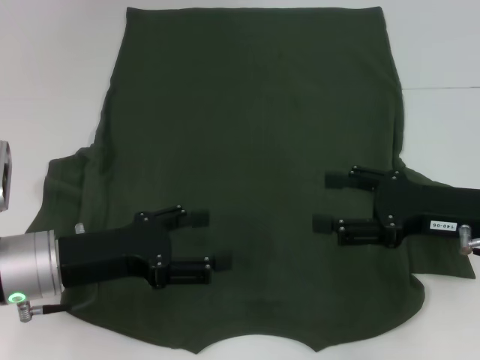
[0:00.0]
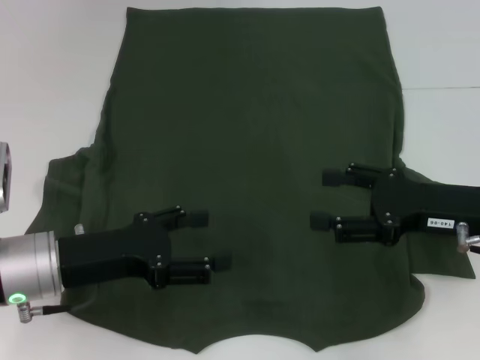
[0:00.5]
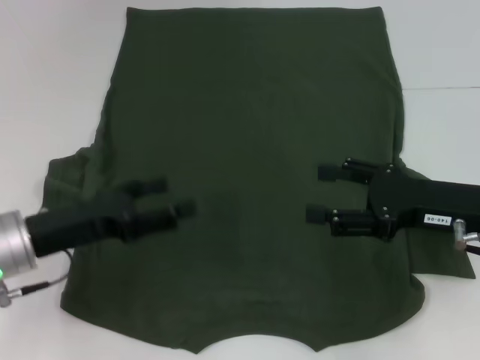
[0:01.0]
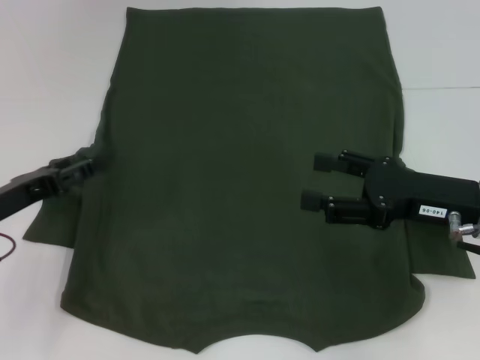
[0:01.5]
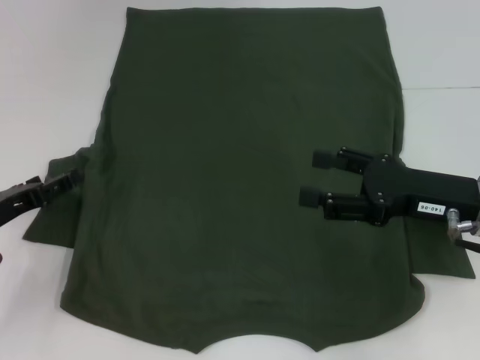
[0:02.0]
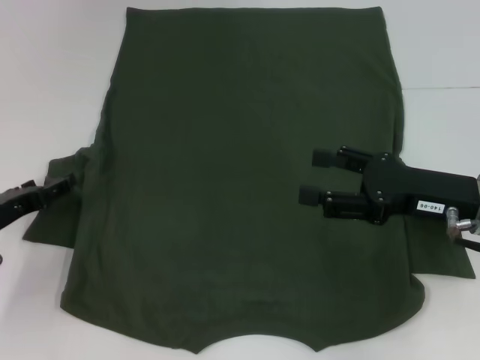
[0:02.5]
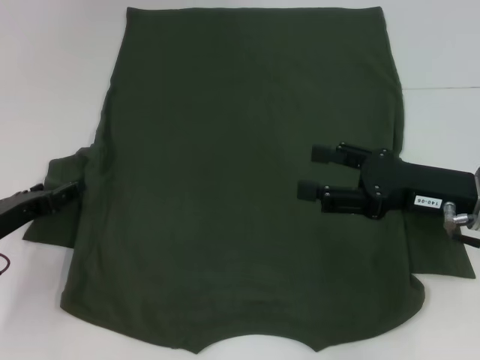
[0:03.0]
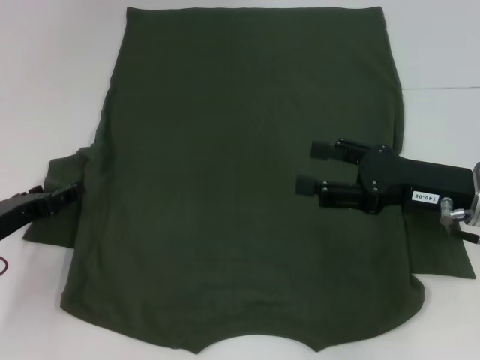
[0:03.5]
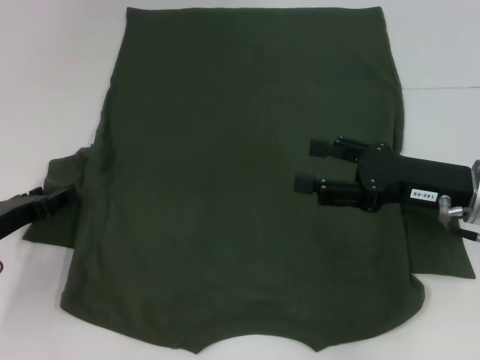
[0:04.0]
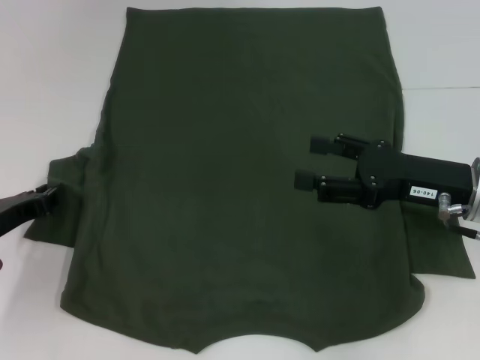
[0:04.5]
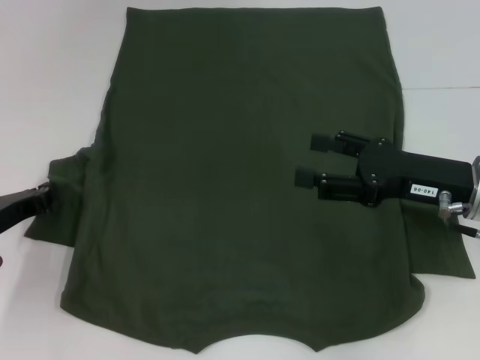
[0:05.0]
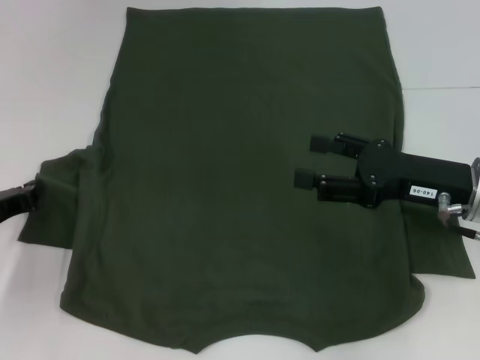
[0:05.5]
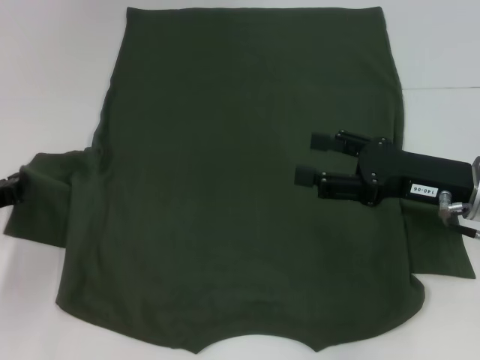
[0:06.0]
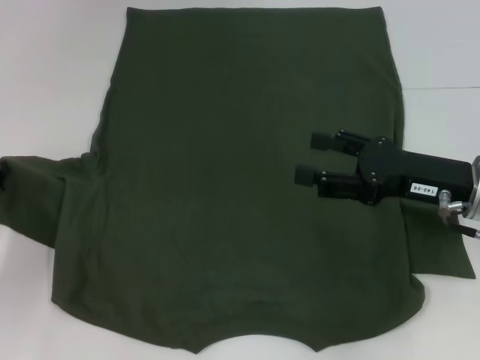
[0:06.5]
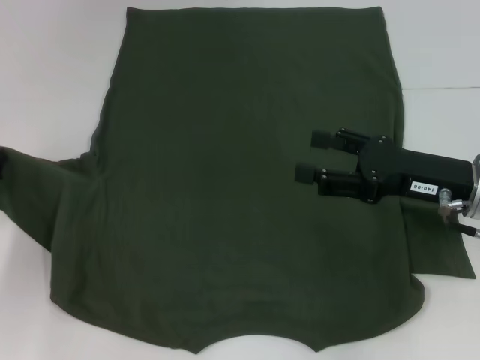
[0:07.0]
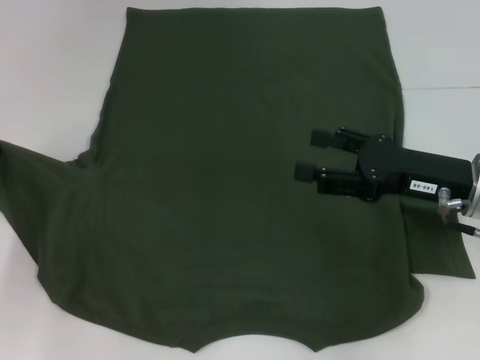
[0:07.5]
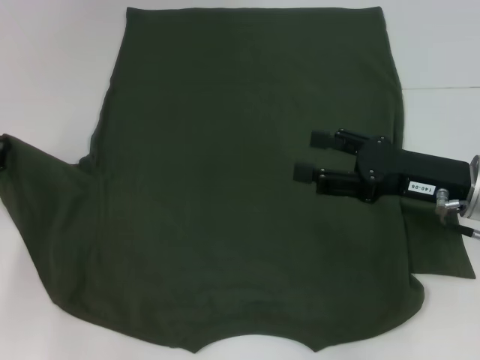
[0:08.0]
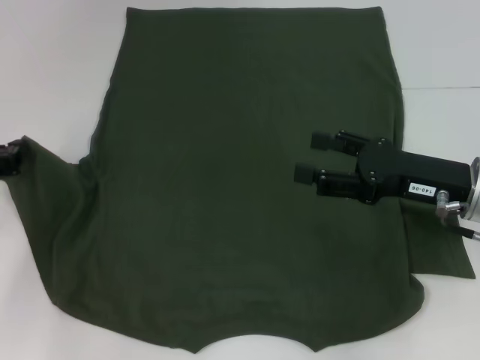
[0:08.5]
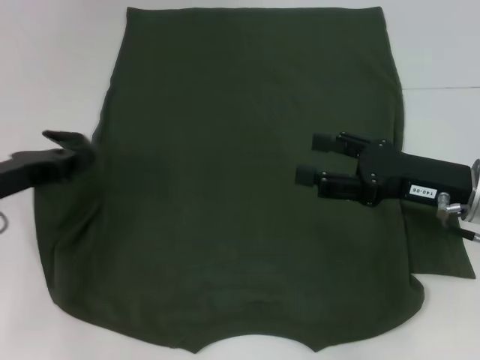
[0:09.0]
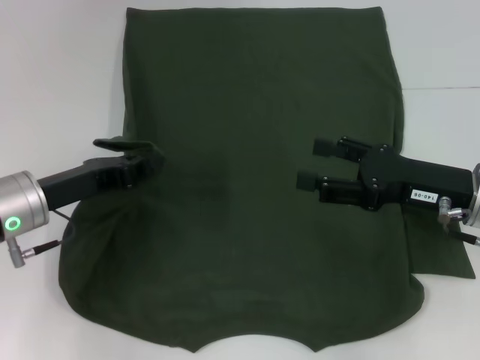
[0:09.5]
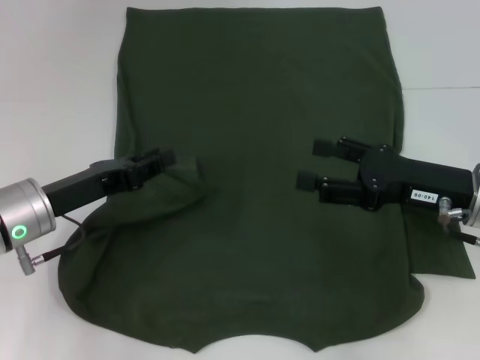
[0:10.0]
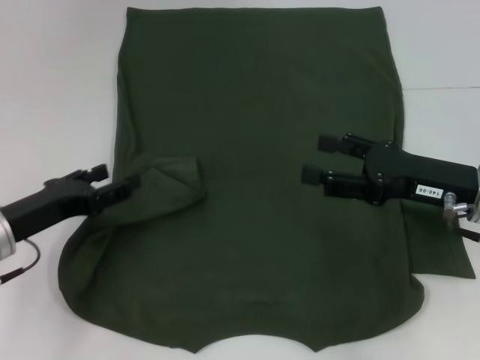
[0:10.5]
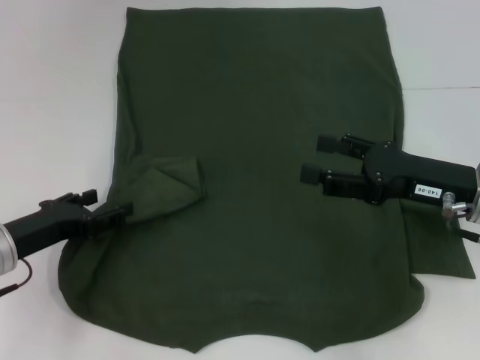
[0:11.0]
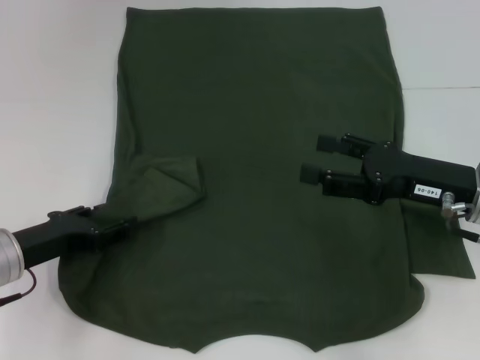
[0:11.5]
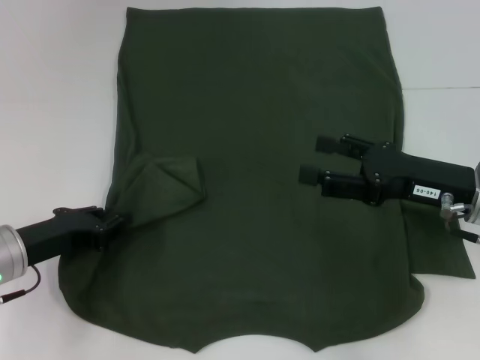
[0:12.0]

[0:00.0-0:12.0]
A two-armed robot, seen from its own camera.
0:00.0 to 0:02.0: The left gripper goes some 10 cm to the left.
0:02.0 to 0:04.0: There are only small adjustments of the grippers.
0:04.0 to 0:06.0: The left gripper closes.
0:06.0 to 0:08.0: The grippers move only a little.
0:08.0 to 0:10.0: The left gripper goes approximately 10 cm to the right.
0:10.0 to 0:12.0: The left gripper changes place by roughly 5 cm, and opens its fingers.

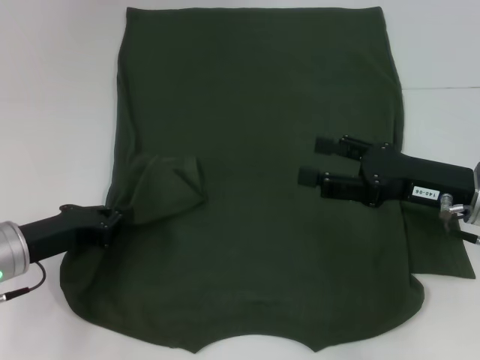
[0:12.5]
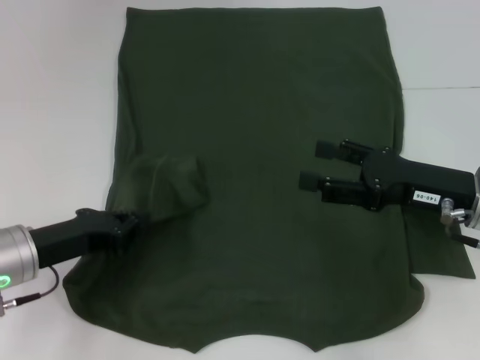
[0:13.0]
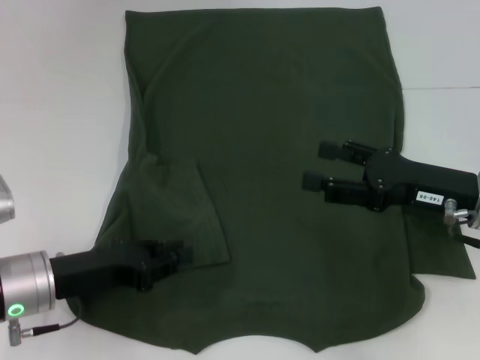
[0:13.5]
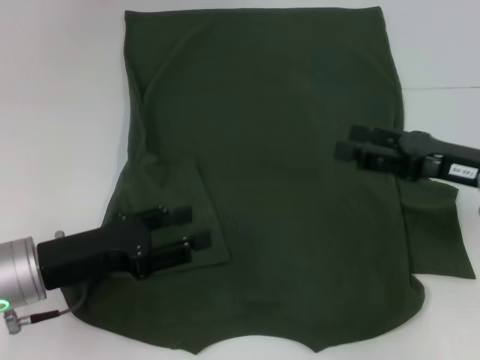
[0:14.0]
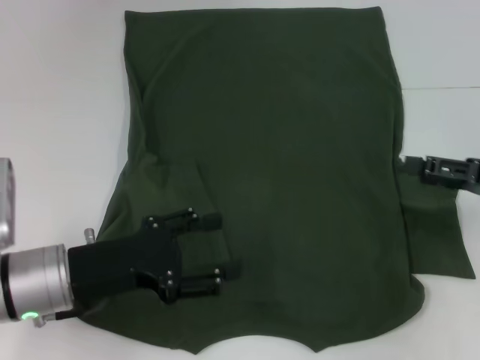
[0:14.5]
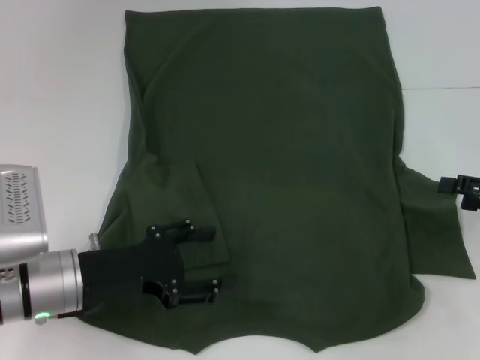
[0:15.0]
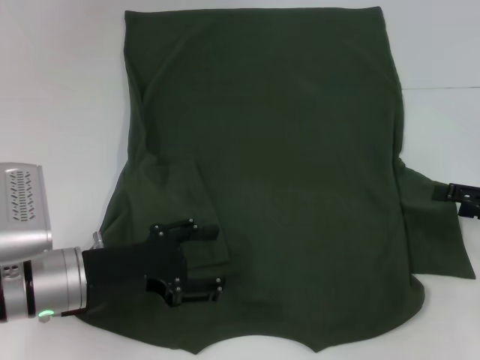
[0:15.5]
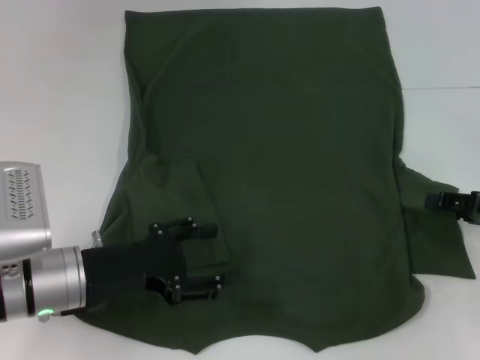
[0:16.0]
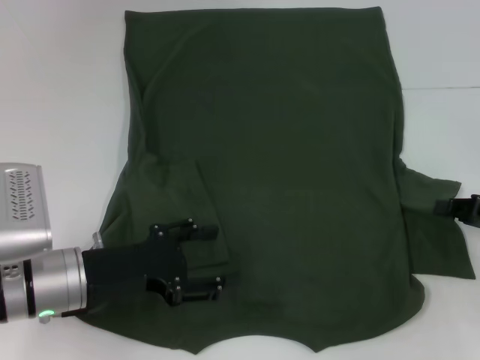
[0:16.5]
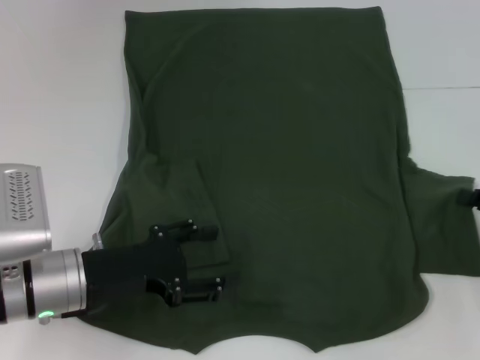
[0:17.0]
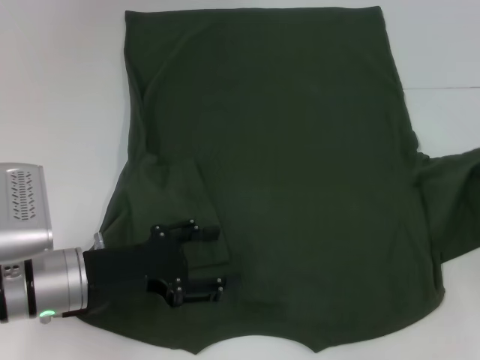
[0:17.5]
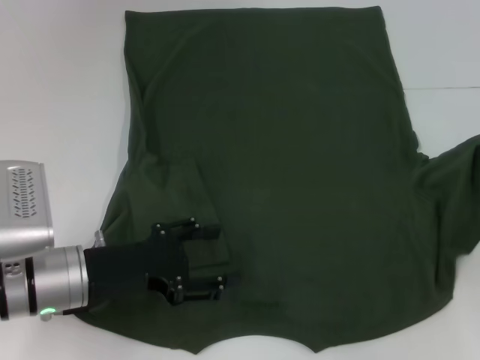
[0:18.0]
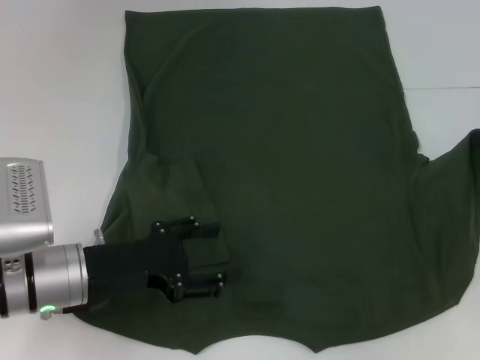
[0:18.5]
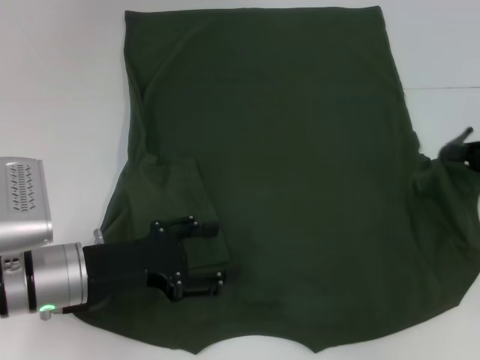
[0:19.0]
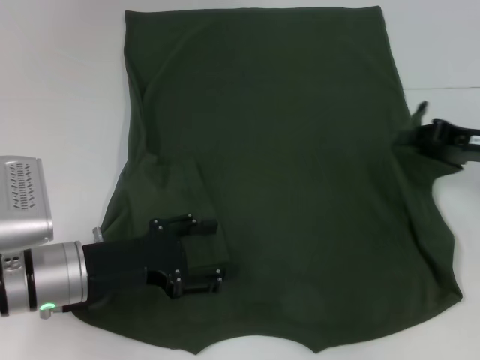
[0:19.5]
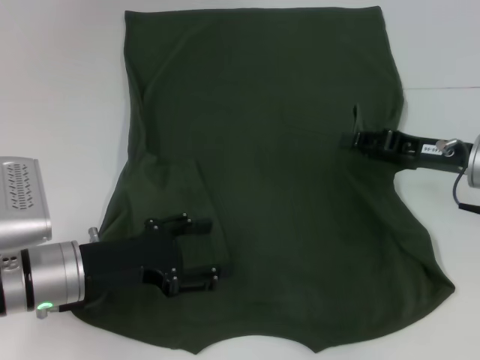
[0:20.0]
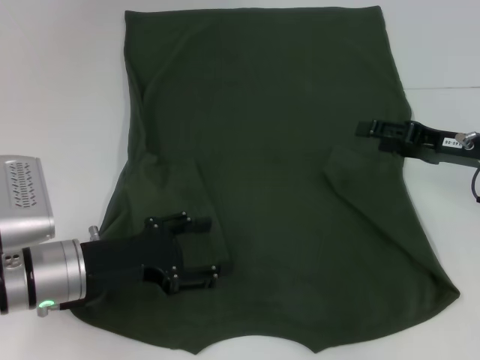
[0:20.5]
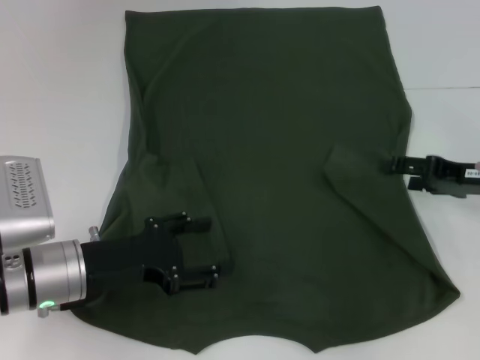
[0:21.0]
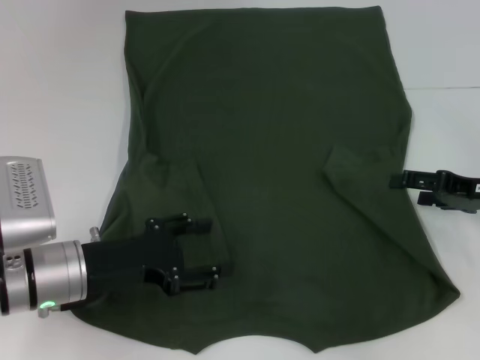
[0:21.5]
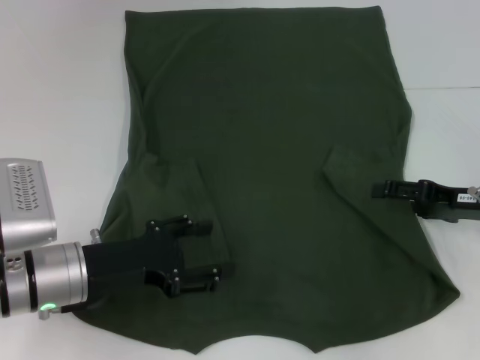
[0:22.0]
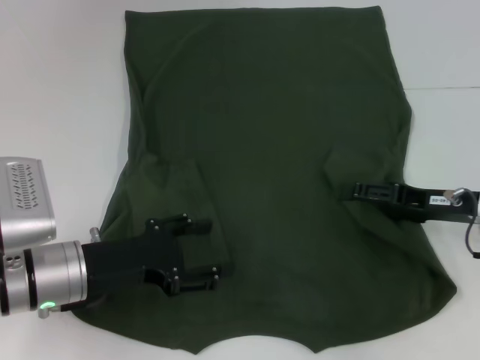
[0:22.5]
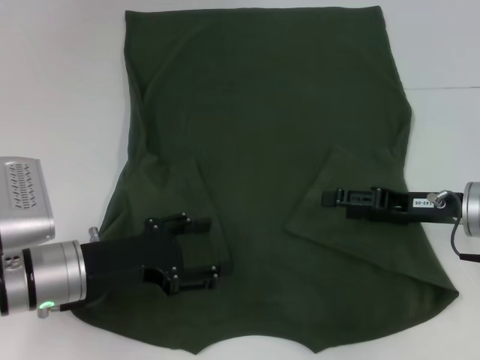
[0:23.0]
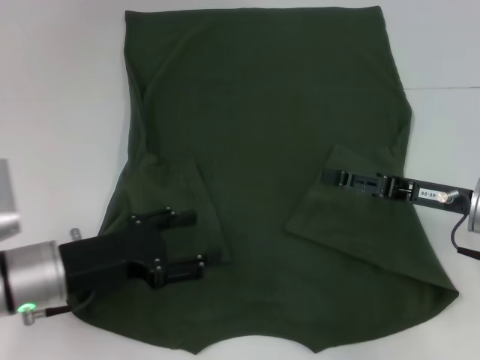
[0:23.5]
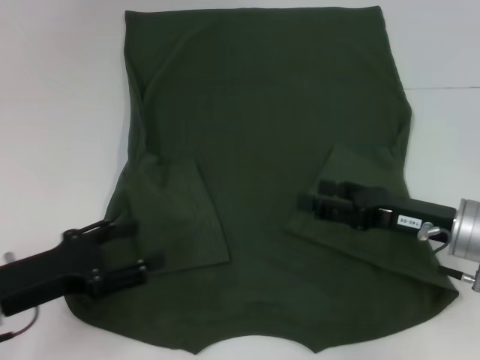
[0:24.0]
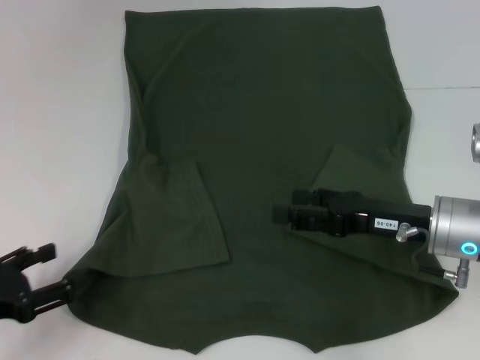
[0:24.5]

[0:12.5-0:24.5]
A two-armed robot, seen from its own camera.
Step, 0:14.0 to 0:23.0: Fold the bottom right sleeve with your right hand.
0:12.5 to 0:14.5: The right gripper shifts some 10 cm to the right. Meanwhile the left gripper moves to the right, approximately 5 cm, and opens.
0:14.5 to 0:16.5: The right gripper is displaced downward by approximately 5 cm, and closes.
0:16.5 to 0:18.5: The right gripper changes place by some 5 cm.
0:18.5 to 0:20.5: The right gripper travels to the left by approximately 10 cm, and opens.
0:20.5 to 0:22.5: The grippers stay close to where they were, moving slightly.
0:22.5 to 0:24.5: The left gripper heads to the left and backward, covering approximately 15 cm. Meanwhile the right gripper is displaced to the left by approximately 5 cm.

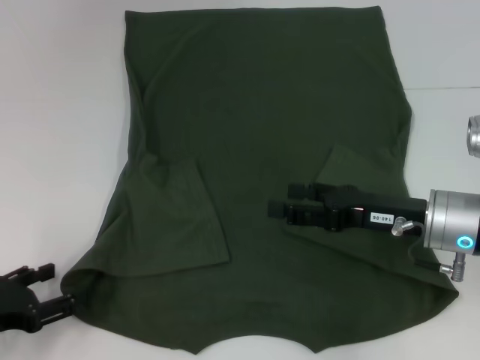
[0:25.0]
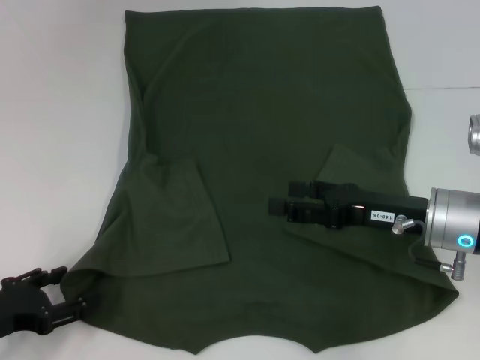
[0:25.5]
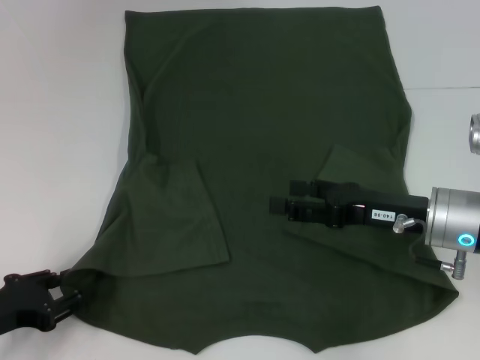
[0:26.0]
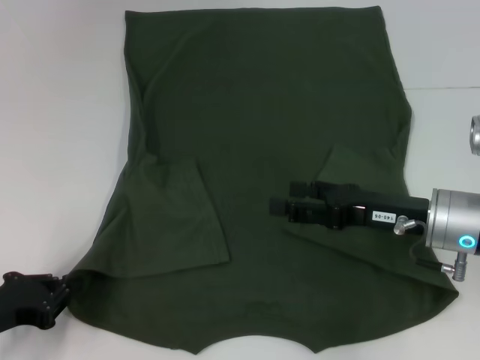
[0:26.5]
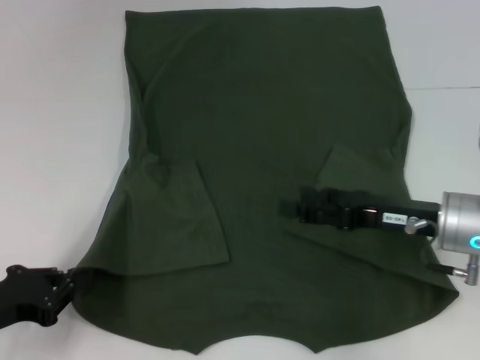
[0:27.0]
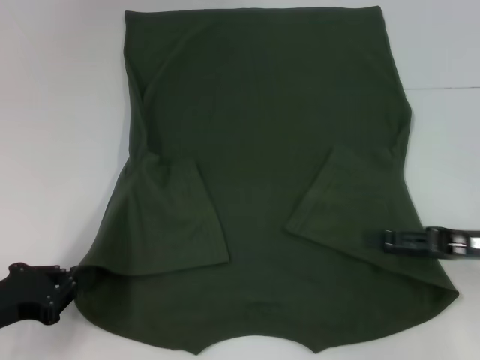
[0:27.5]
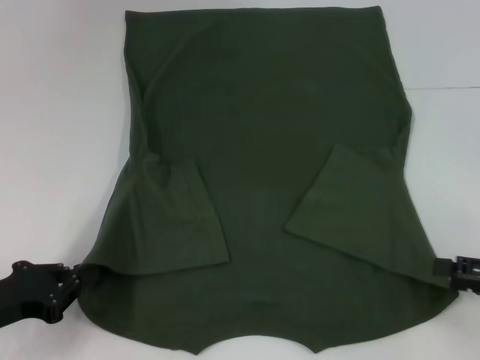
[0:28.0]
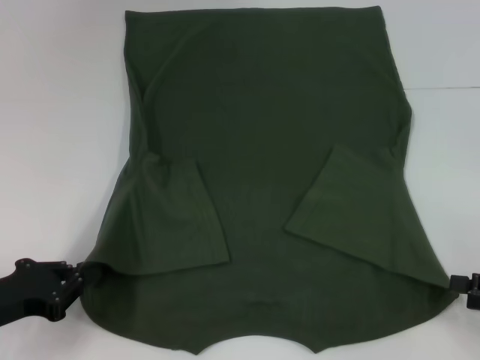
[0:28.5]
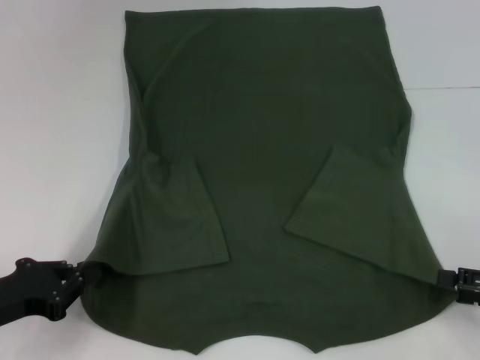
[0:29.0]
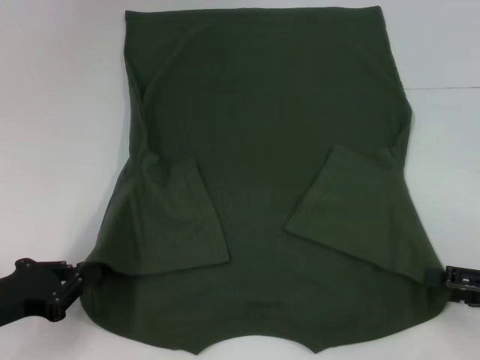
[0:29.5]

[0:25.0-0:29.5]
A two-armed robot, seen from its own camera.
0:25.0 to 0:27.0: The left gripper closes up.
0:27.0 to 0:29.5: The right gripper shifts approximately 15 cm to the right and backward.
